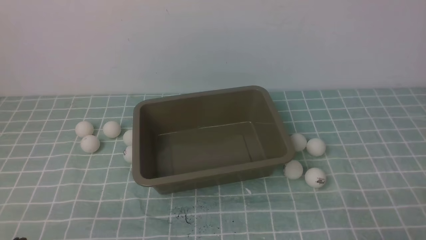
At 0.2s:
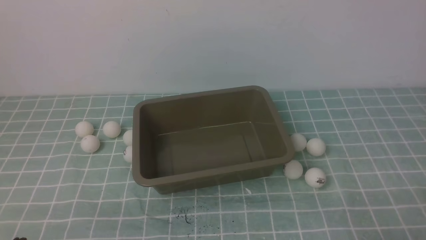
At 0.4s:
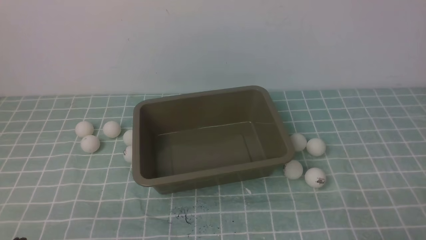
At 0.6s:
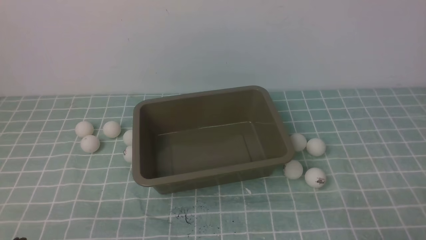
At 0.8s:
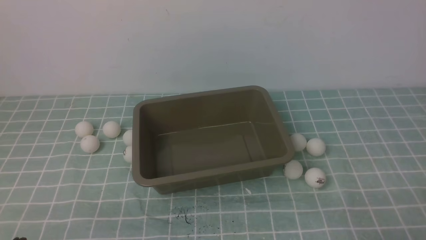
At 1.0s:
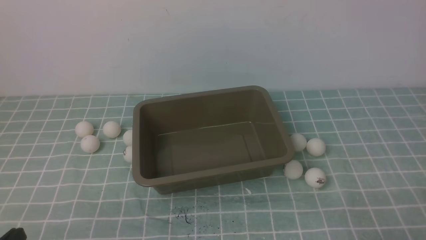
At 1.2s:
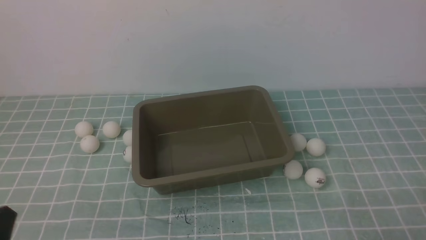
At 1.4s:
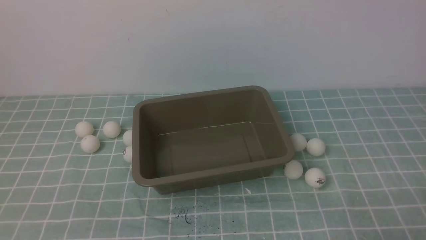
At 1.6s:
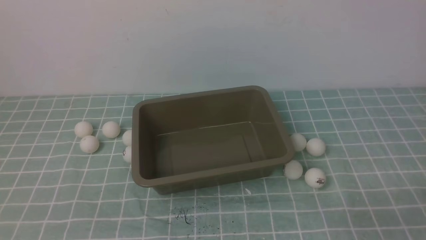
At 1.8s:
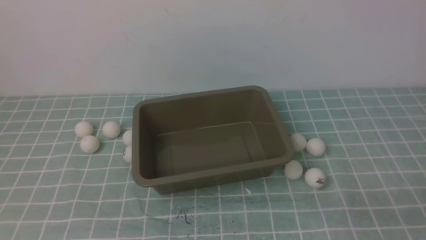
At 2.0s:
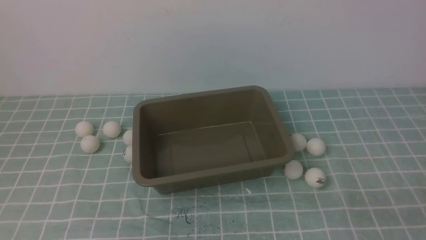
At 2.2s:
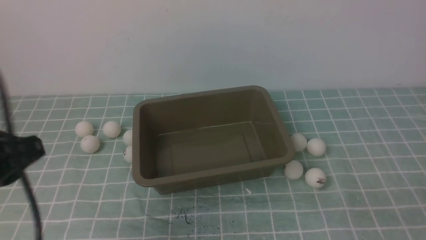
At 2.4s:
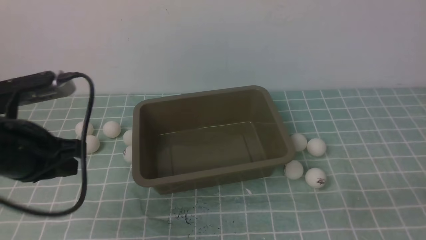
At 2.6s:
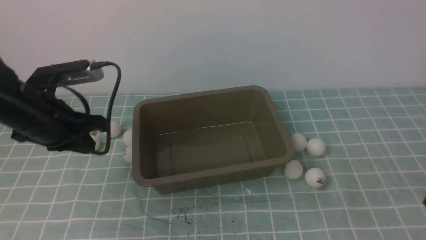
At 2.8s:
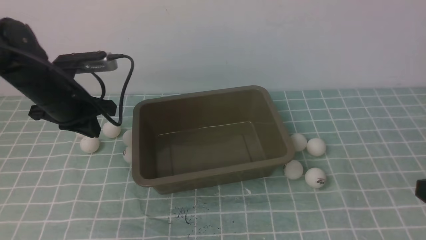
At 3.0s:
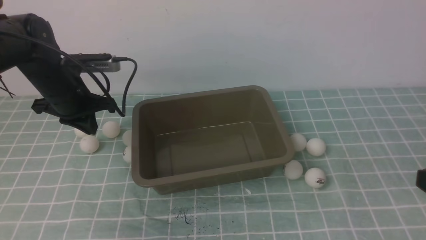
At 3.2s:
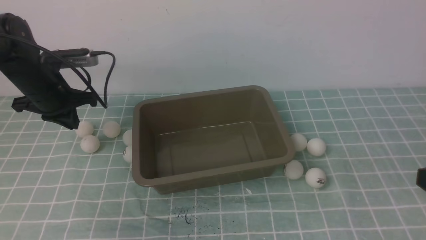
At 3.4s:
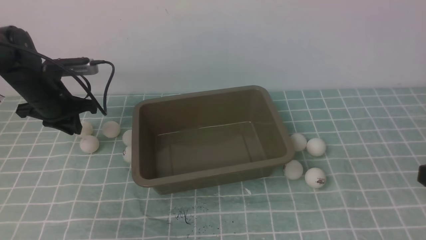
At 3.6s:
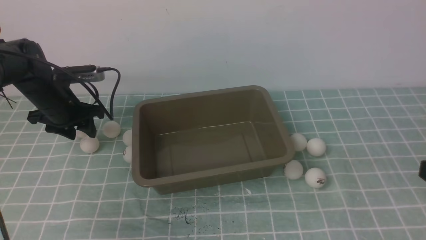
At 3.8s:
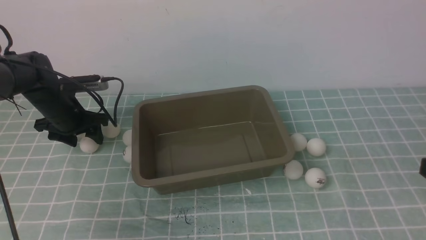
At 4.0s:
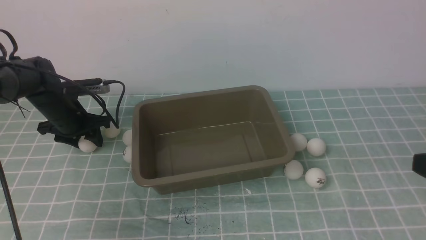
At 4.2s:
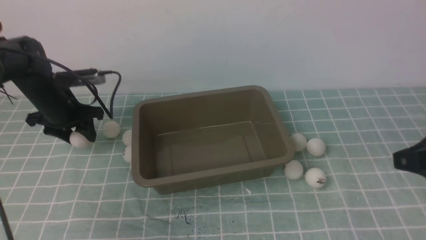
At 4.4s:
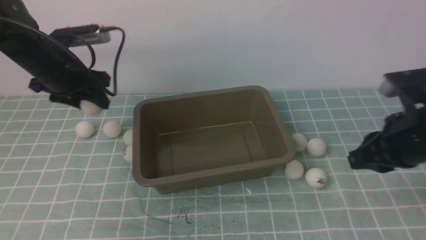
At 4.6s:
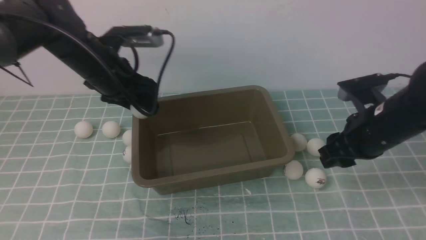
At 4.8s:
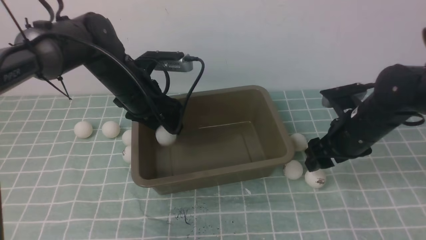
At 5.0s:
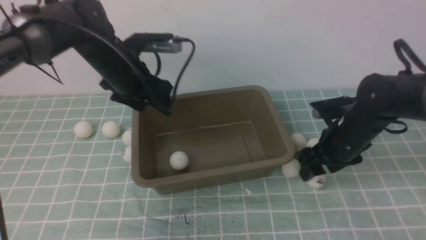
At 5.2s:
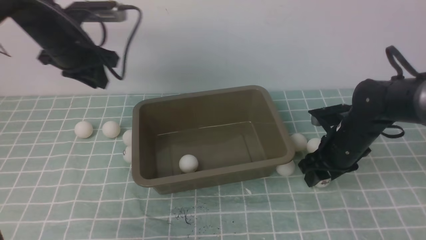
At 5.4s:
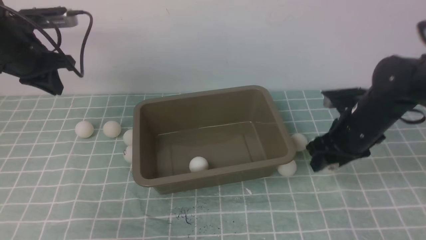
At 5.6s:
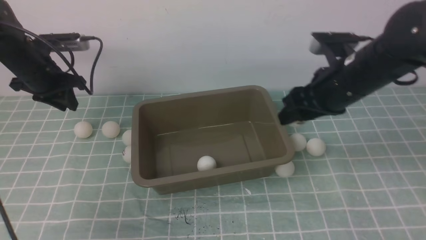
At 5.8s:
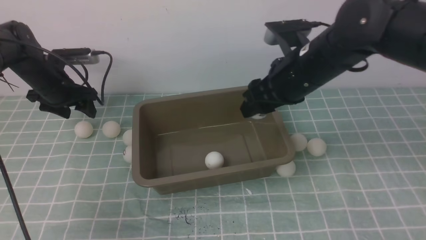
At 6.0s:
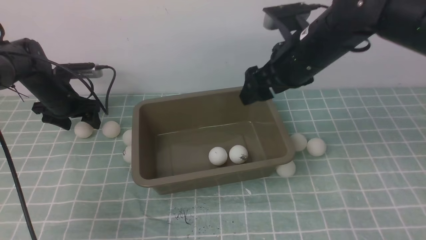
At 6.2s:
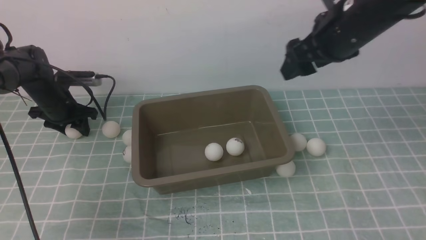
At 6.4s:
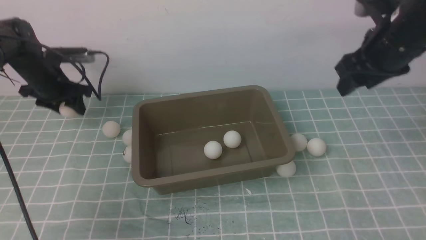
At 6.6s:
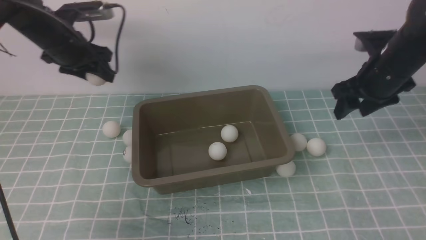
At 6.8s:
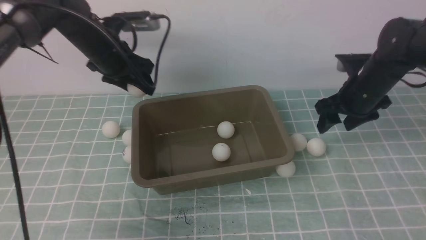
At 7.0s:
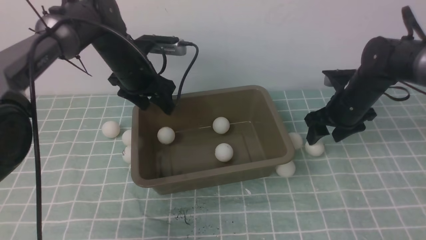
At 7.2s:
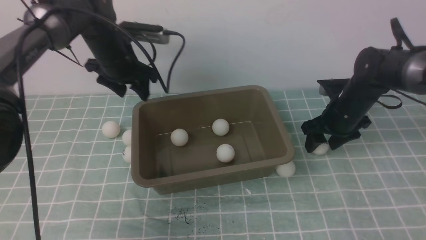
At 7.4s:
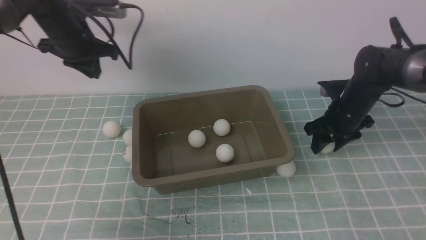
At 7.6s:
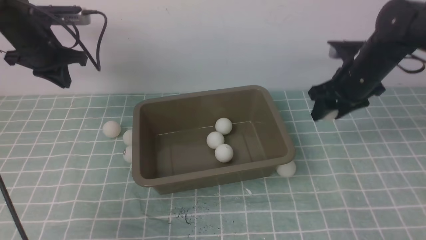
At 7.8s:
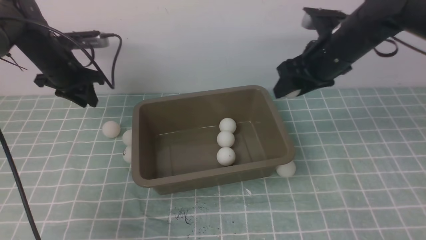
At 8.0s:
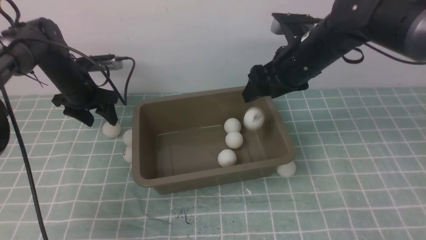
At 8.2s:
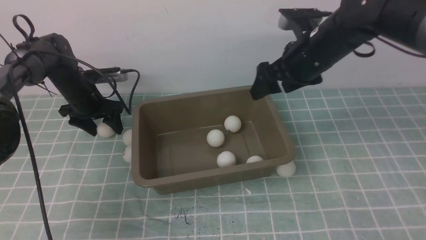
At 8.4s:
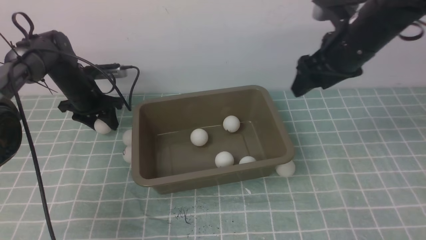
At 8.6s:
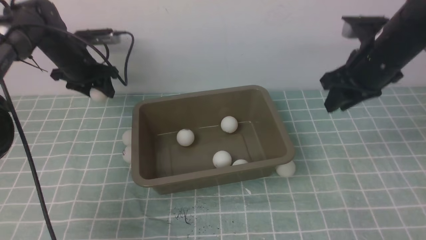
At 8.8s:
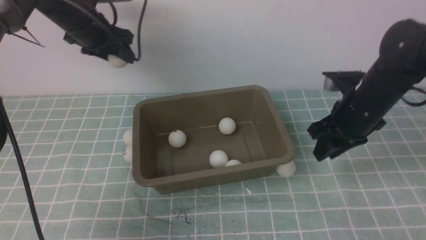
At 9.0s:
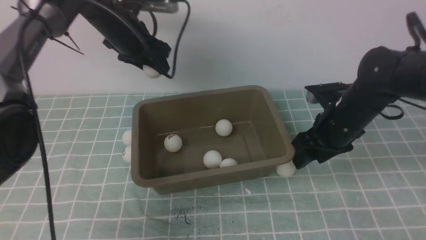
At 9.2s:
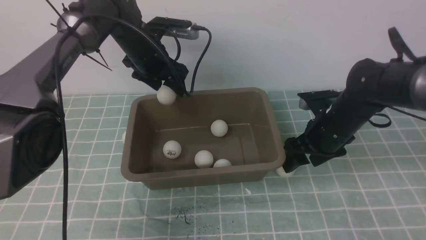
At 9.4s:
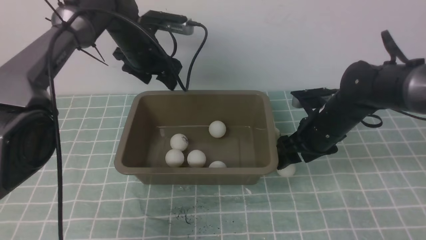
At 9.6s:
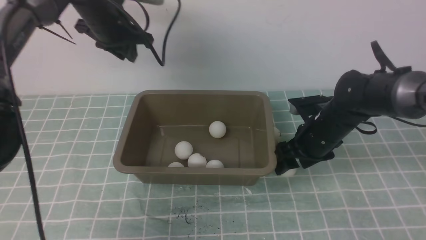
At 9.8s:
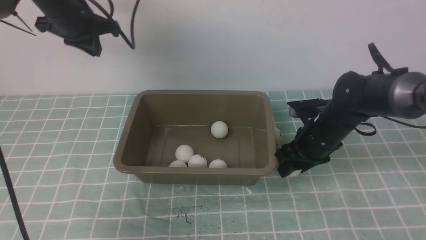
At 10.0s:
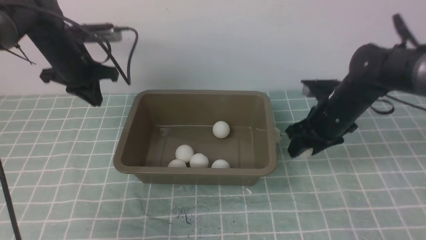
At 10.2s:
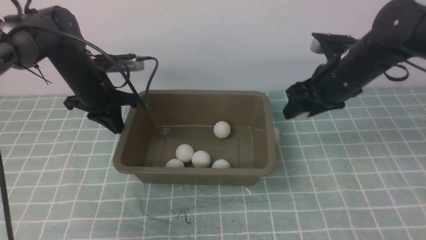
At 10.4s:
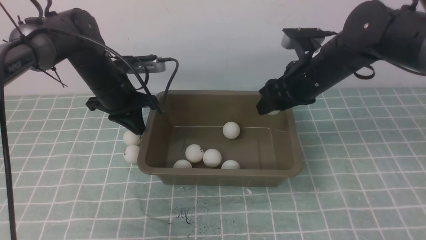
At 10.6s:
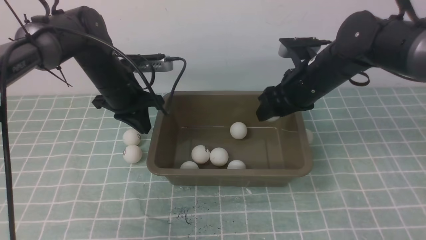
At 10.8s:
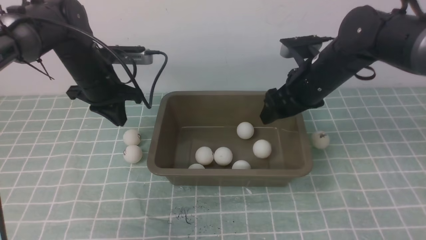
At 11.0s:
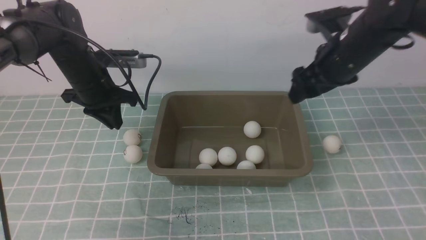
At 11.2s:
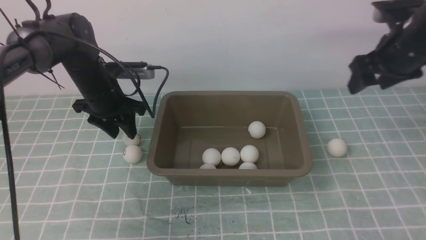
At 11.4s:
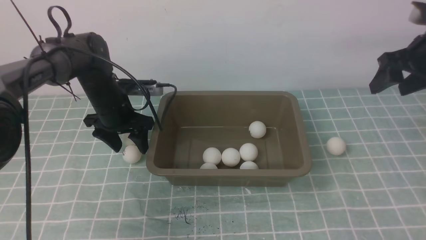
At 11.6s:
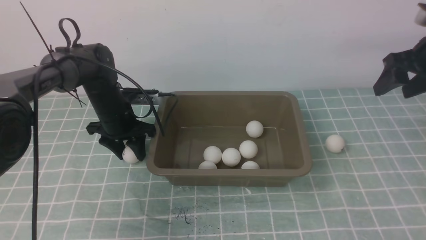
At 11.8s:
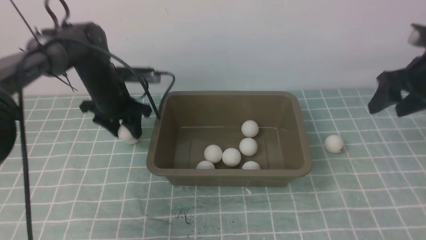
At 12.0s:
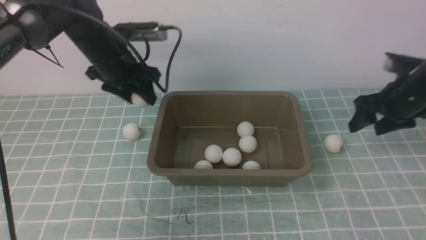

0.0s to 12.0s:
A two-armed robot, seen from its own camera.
Step, 0.0s to 4.2s: use the left arm to clamp the table tennis ball closest to it.
Step, 4.4s to 4.8s: use the left arm to put the table tennis ball into the box.
Step, 5.0s to 5.4s: use the right arm to clamp the table tennis ball closest to it.
Step, 6.0s to 6.4s: use the left arm to clamp the table tennis ball closest to it.
Step, 7.0s to 7.4s: use the right arm to clamp the table tennis ball closest to it.
Step, 7.6s to 8.4s: use the right arm to put the table tennis ball into the box.
Step, 8.6s to 8.8s: use the left arm to clamp the table tennis ball closest to it.
Step, 9.4s to 10.2s: use the right arm to clamp the table tennis ball closest to it.
Step, 10.4s to 10.6s: use the right arm to put the table tennis ball into the box.
Step, 10.8s to 11.8s: use the left arm to clamp the table tennis ball closest to it.
1.6s to 3.0s: The left gripper travels forward by about 35 cm. The right gripper goes some 10 cm upward.
3.0s to 4.4s: The left gripper travels downward and back again, approximately 10 cm each way, and opens. The right gripper travels forward by about 10 cm.
4.4s to 6.0s: The left gripper travels to the left, downward and forward by about 10 cm, and closes and opens again. Meanwhile the right gripper heads forward and to the left, covering roughly 20 cm, travels downward and back again, approximately 15 cm each way, and opens.
6.0s to 7.6s: The left gripper shifts about 10 cm upward, goes to the right and returns, roughly 15 cm each way, and closes its fingers, while the right gripper shifts roughly 15 cm downward, to the right and forward.
7.6s to 9.0s: The right gripper goes approximately 5 cm backward, and goes upward and returns, roughly 10 cm each way; the left gripper shifts approximately 10 cm to the right, reaches roughly 10 cm downward, then returns, and opens.
9.0s to 10.4s: The left gripper goes left and right, approximately 10 cm each way, reversing 2 times, and closes up. Meanwhile the right gripper moves about 5 cm.
10.4s to 12.0s: The left gripper opens, while the right gripper travels to the right by approximately 15 cm.

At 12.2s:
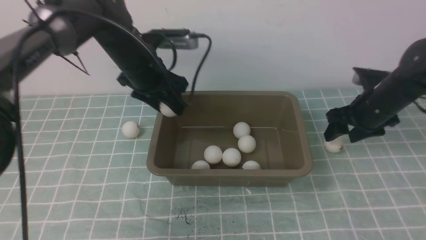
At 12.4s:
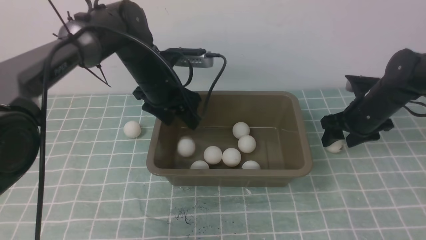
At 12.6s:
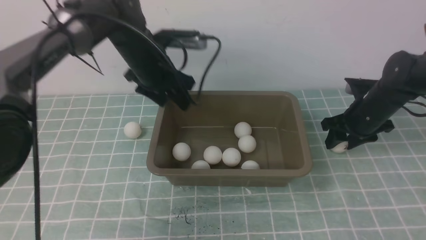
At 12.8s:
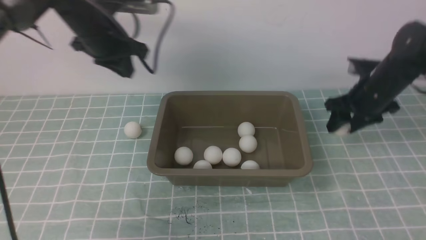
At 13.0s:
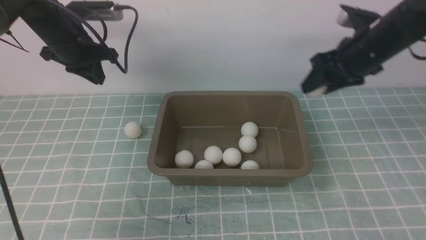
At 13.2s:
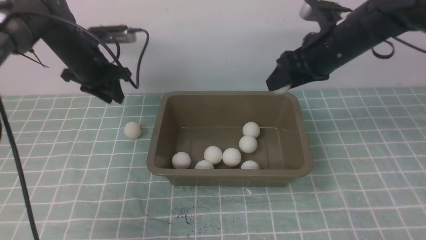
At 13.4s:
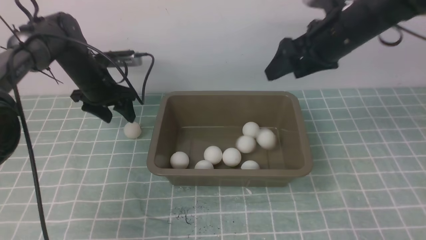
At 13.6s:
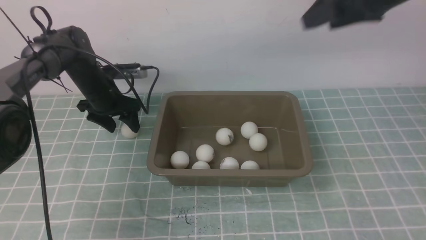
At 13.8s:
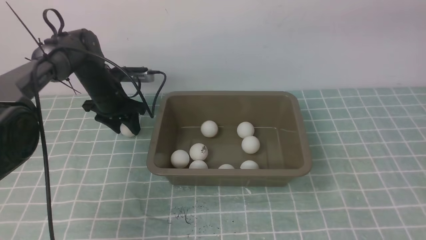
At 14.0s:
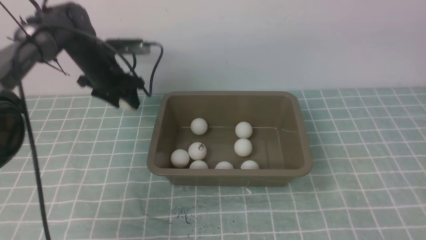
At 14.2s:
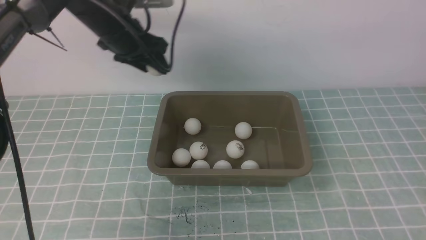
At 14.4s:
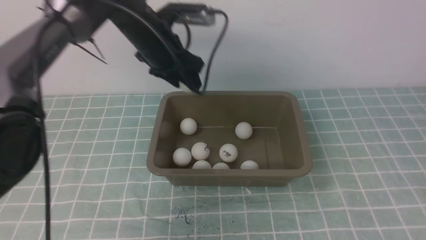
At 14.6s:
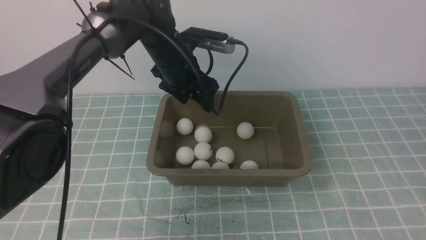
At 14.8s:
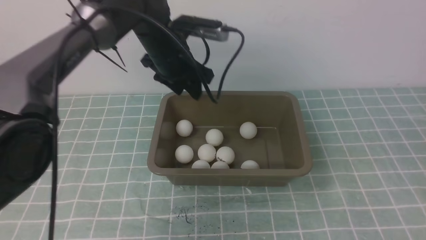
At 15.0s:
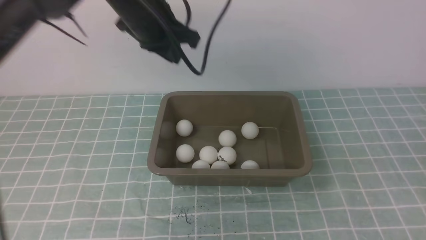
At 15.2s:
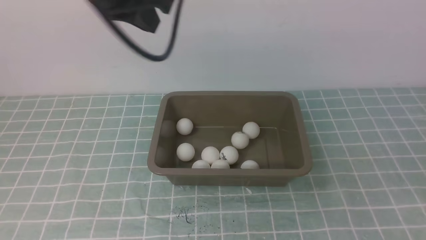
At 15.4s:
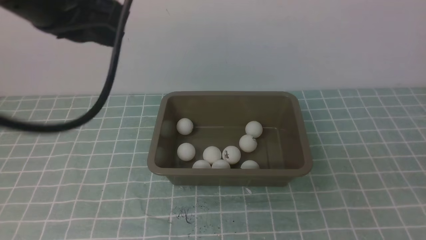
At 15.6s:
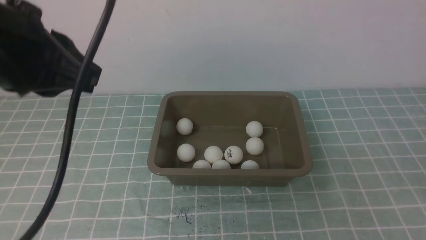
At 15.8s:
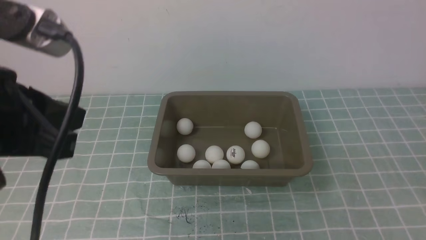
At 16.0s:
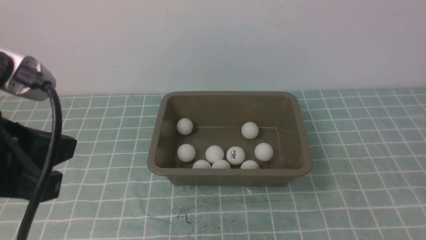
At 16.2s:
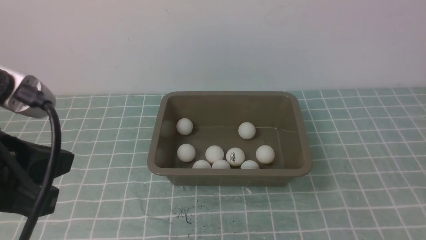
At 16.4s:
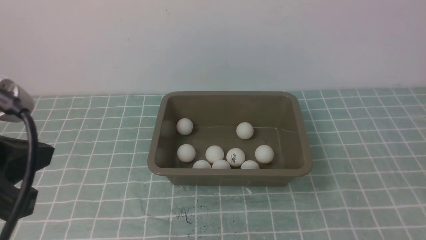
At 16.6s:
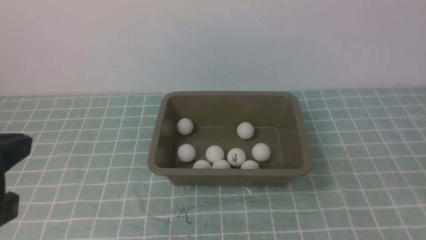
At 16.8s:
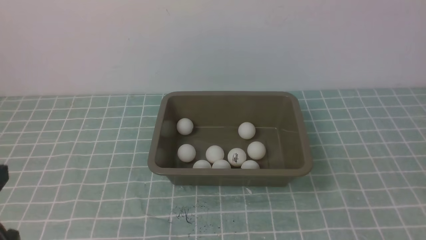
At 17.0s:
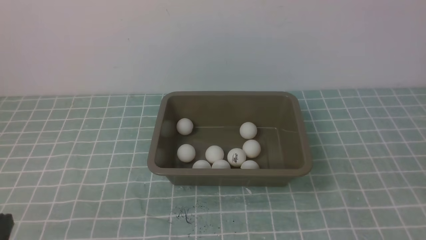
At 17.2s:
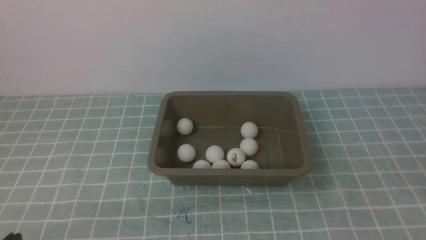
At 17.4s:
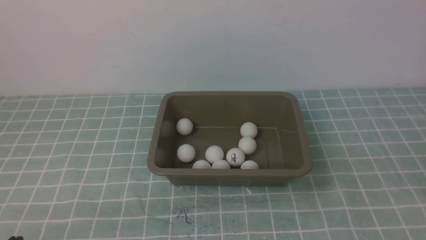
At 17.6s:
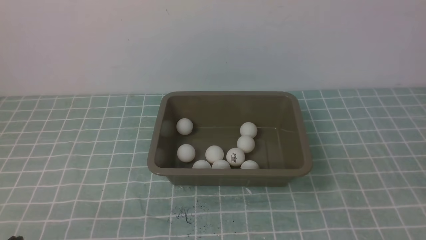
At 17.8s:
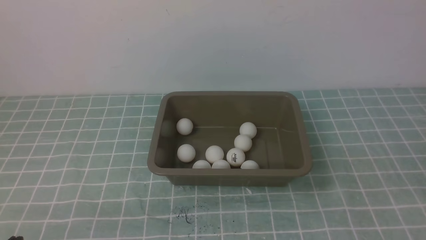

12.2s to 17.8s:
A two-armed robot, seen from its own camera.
Step, 12.2s to 12.4s: use the left arm to put the table tennis ball into the box.
Step, 12.6s to 13.2s: use the right arm to clamp the table tennis ball closest to it.
Step, 13.4s to 13.8s: use the right arm to put the table tennis ball into the box.
Step, 14.0s to 14.4s: use the left arm to clamp the table tennis ball closest to it.
Step, 14.6s to 15.0s: use the left arm to put the table tennis ball into the box.
12.2s to 13.6s: The left gripper travels to the left, downward and forward by approximately 15 cm, and closes, then reopens; the right gripper travels upward and to the left by approximately 20 cm.
13.6s to 15.0s: The right gripper moves backward, some 35 cm, and closes up; the left gripper goes approximately 25 cm upward, to the right and backward, and closes its fingers.
15.0s to 16.4s: The left gripper is displaced backward by approximately 30 cm.
16.4s to 17.8s: The left gripper shifts roughly 20 cm downward.
